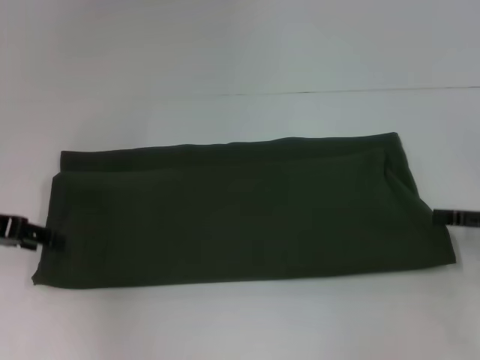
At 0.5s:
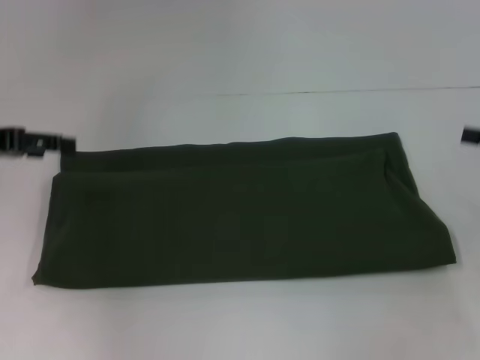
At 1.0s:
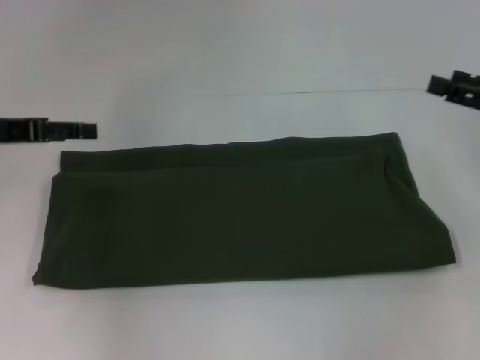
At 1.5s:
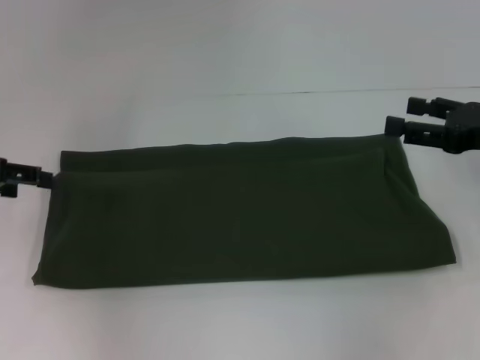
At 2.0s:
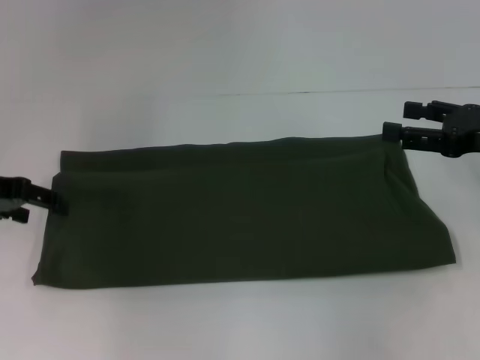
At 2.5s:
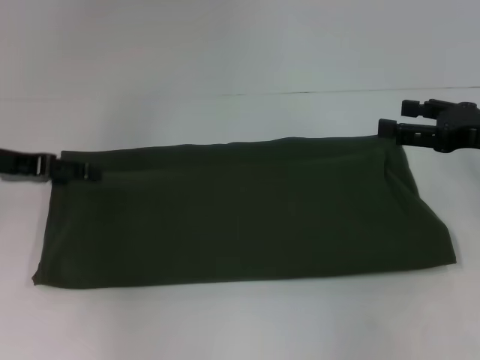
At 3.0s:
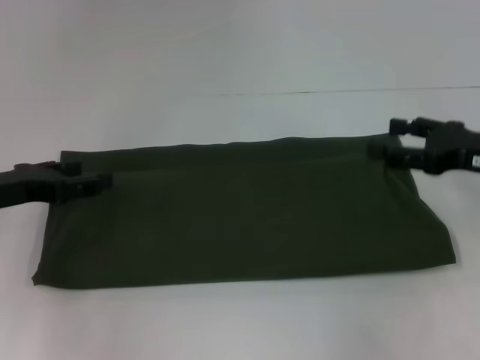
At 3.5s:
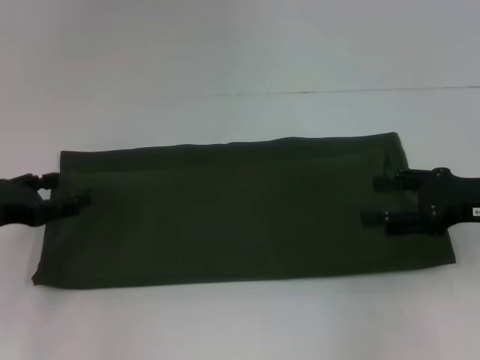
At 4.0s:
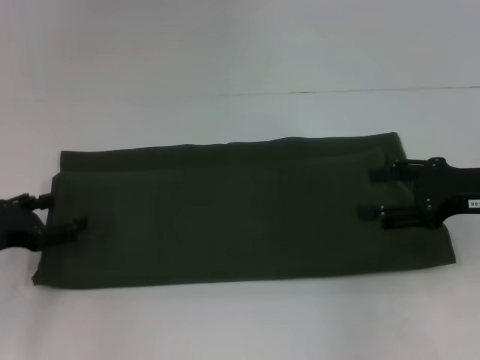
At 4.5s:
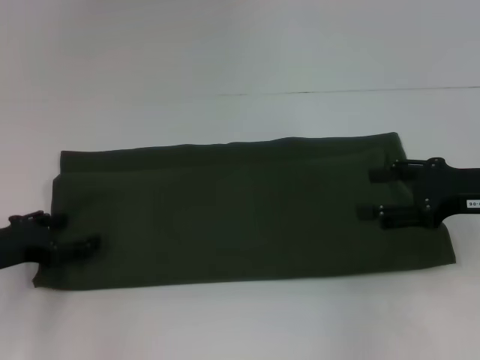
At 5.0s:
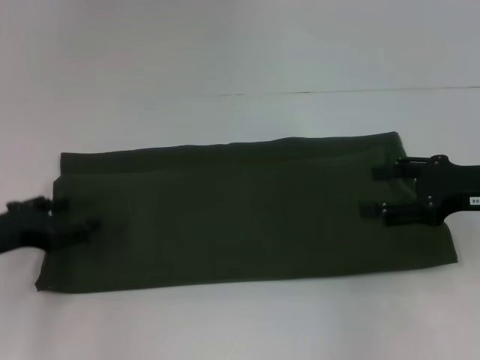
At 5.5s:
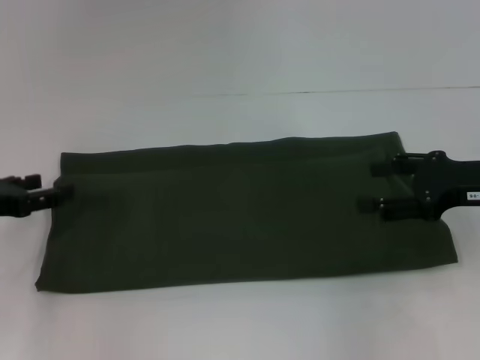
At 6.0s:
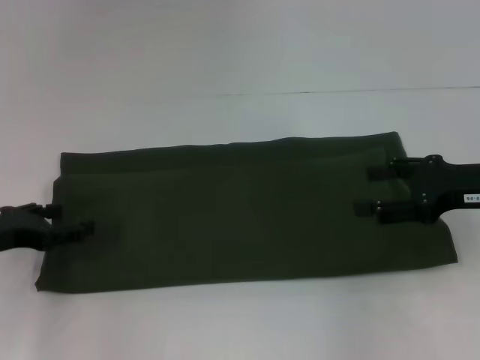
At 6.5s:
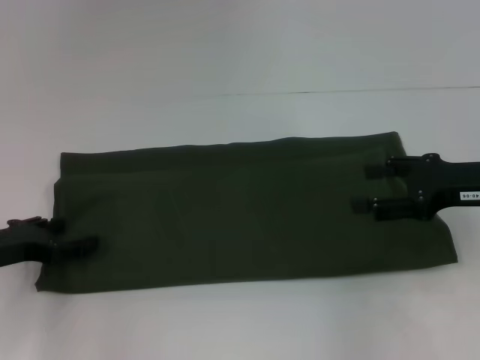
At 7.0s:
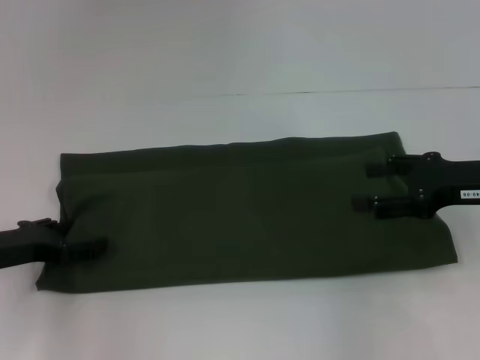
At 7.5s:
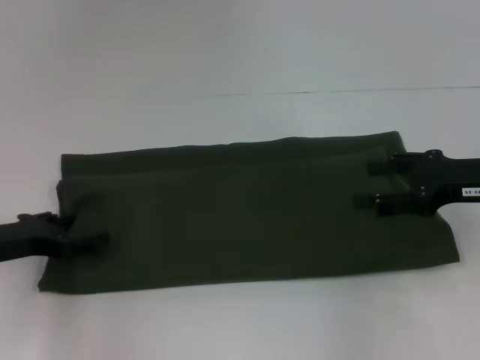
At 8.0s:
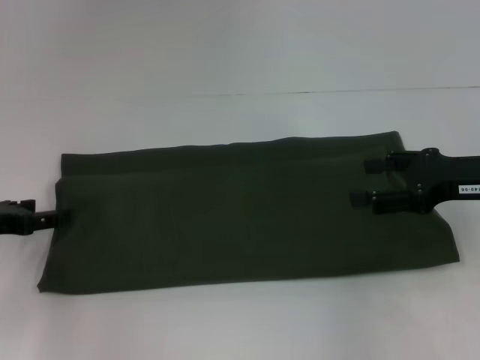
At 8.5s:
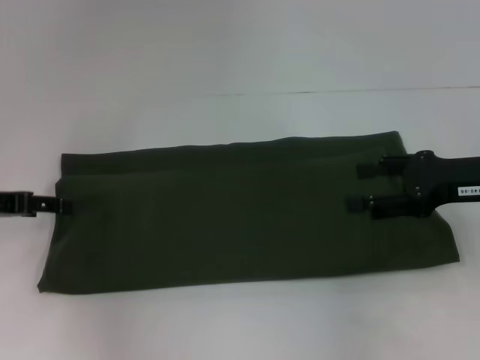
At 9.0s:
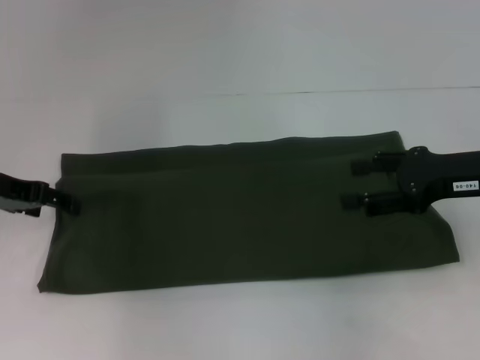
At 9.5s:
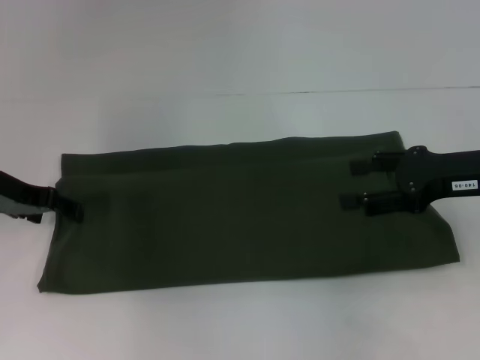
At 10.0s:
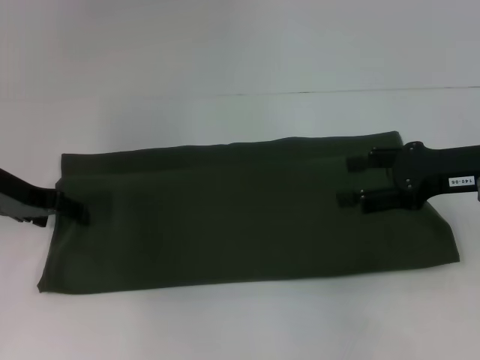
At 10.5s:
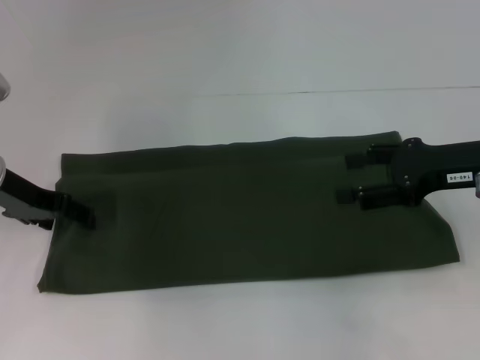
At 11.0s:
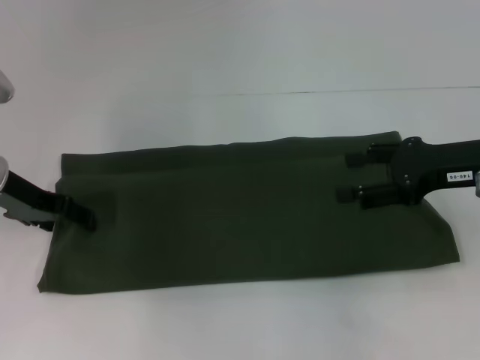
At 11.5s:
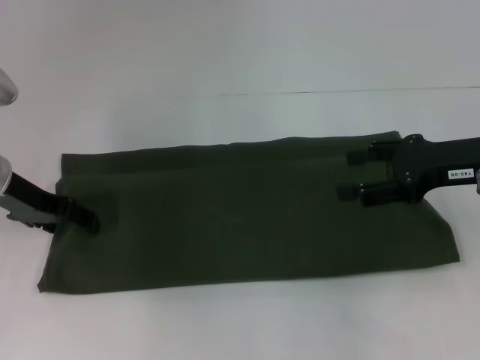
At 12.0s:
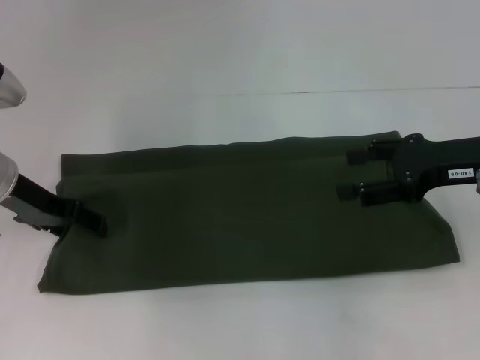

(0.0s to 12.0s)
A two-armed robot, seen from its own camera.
0.0s - 2.0s: The left gripper opens. Meanwhile the right gripper travels to the left by about 5 cm.
2.0s - 4.0s: The left gripper shifts approximately 10 cm downward and backward.
4.0s - 8.0s: There are only small adjustments of the grippers.
8.0s - 10.0s: The left gripper moves forward, about 10 cm.
10.0s - 12.0s: The grippers make only small movements.

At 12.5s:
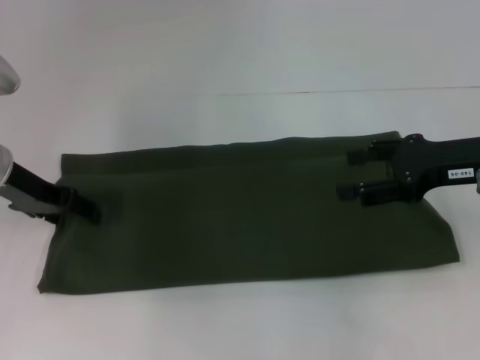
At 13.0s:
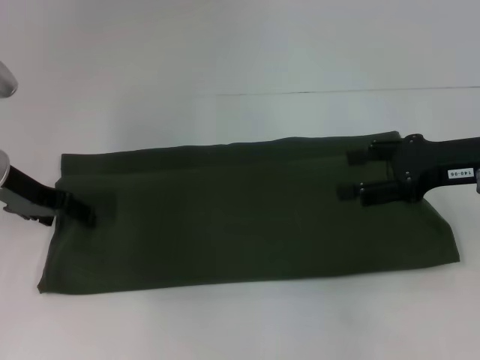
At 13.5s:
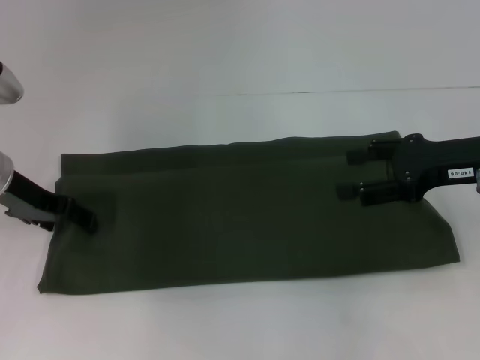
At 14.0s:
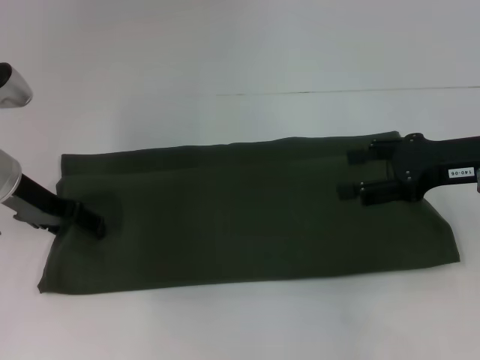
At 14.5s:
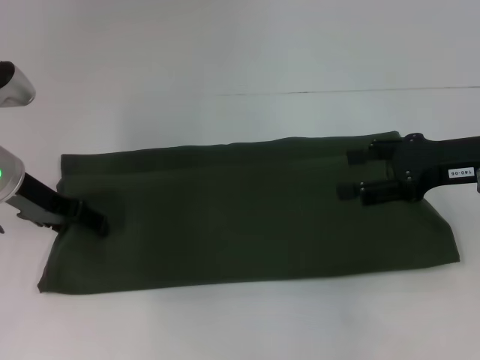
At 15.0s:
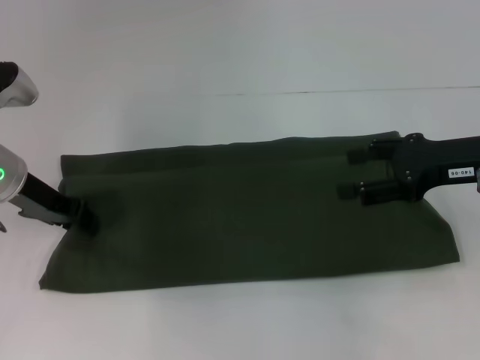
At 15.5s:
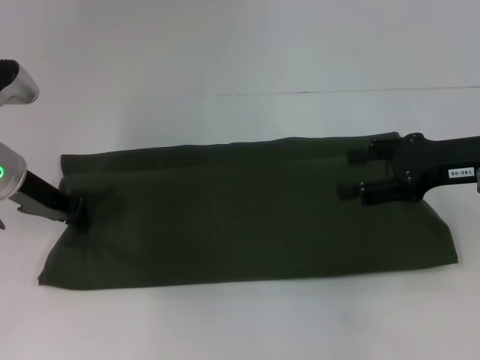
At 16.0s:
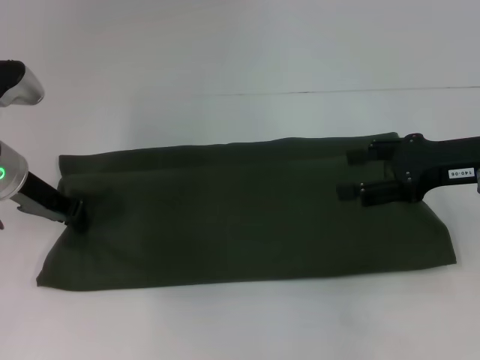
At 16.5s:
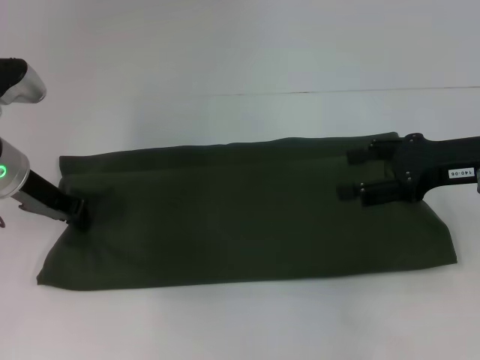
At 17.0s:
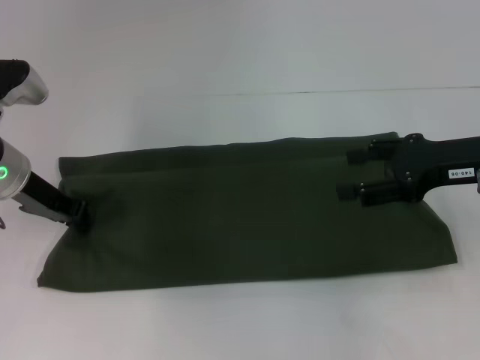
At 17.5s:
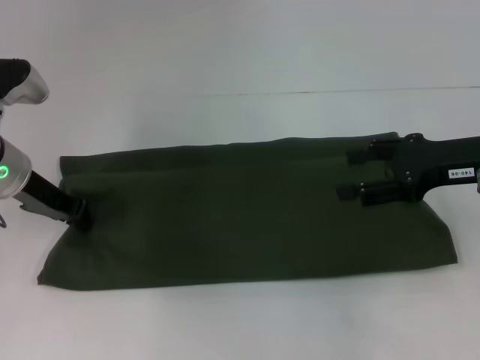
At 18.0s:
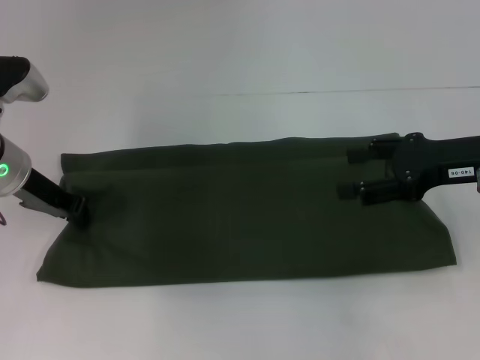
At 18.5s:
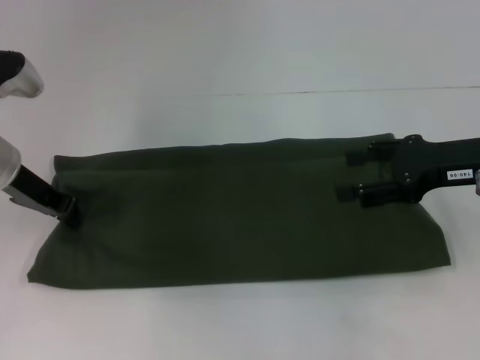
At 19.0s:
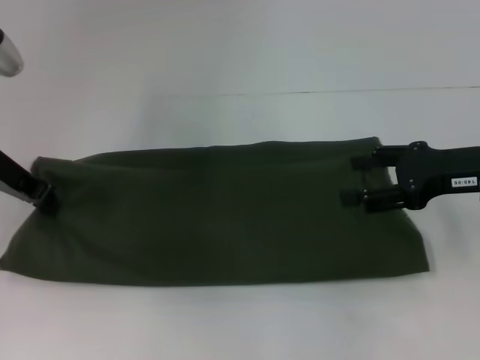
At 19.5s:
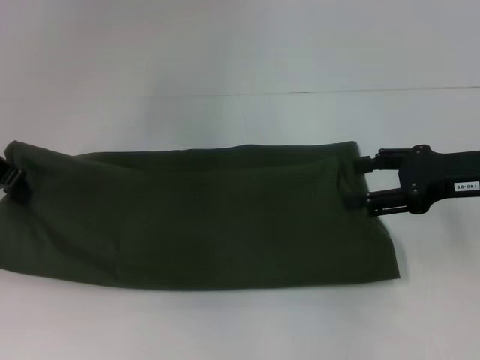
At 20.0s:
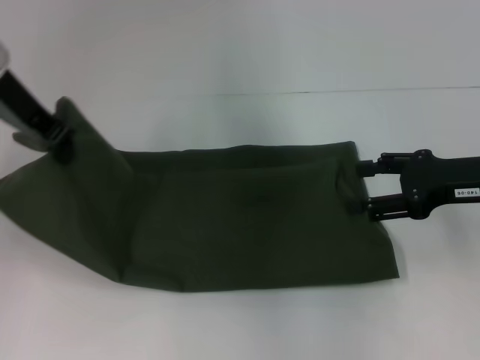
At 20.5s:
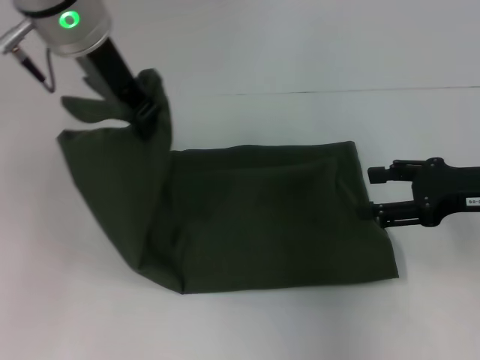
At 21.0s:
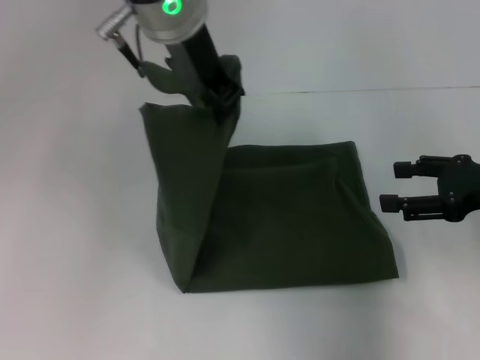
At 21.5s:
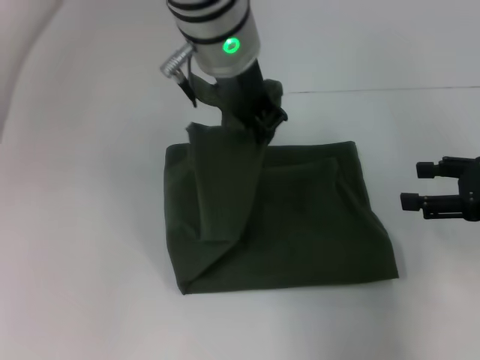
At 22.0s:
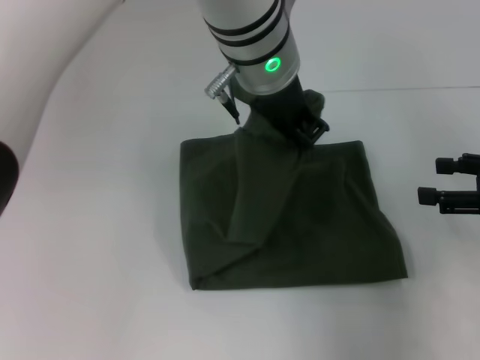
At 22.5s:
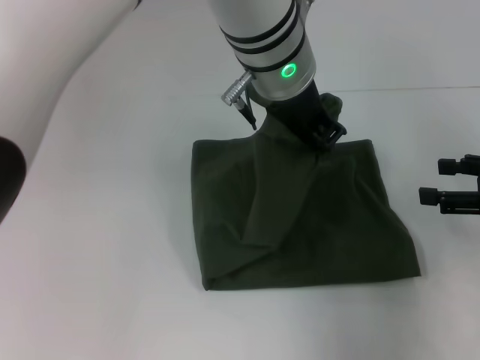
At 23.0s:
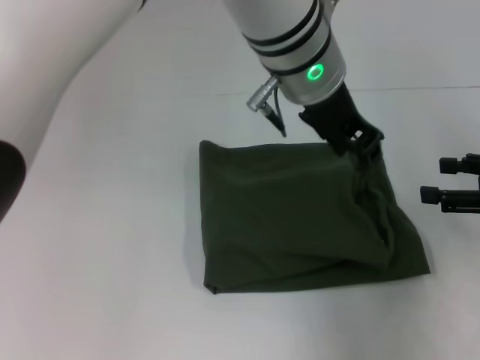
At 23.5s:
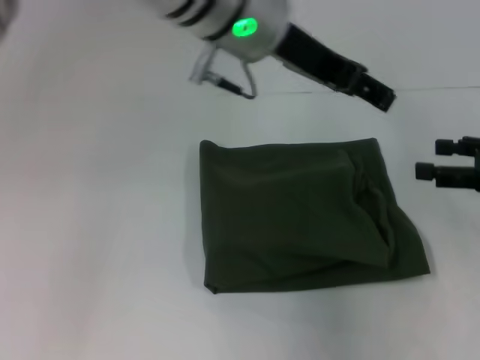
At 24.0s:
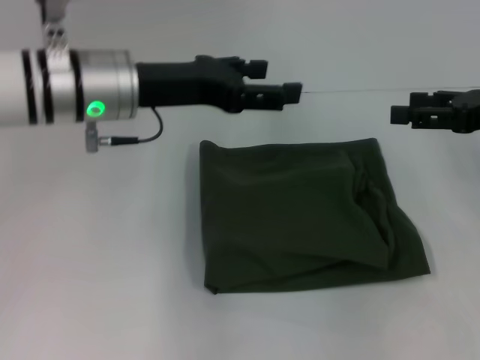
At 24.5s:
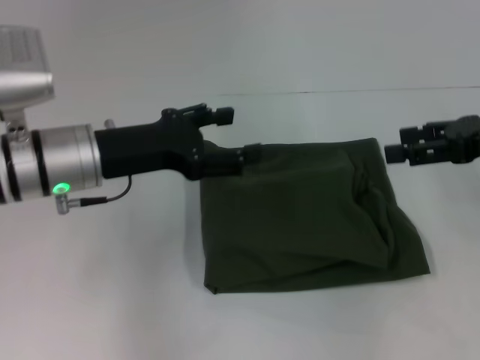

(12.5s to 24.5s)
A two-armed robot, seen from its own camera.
Step, 12.5s - 23.0s: Fold the clothes with your left hand.
12.5s - 14.5s: Both grippers stay put.
14.5s - 16.5s: The left gripper closes its fingers.
16.5s - 18.5s: The two grippers keep their place.
18.5s - 20.5s: The left gripper travels upward and to the right by approximately 20 cm.
20.5s - 22.5s: The left gripper goes approximately 15 cm to the right. The right gripper travels to the right by some 5 cm.
22.5s - 24.5s: The left gripper moves to the left and downward, roughly 25 cm, and opens up; the right gripper moves upward, approximately 5 cm.

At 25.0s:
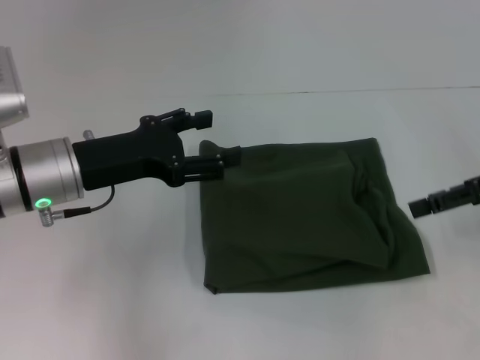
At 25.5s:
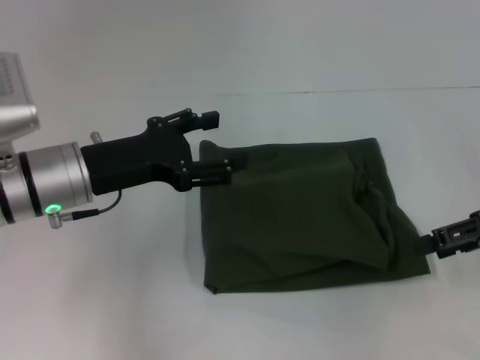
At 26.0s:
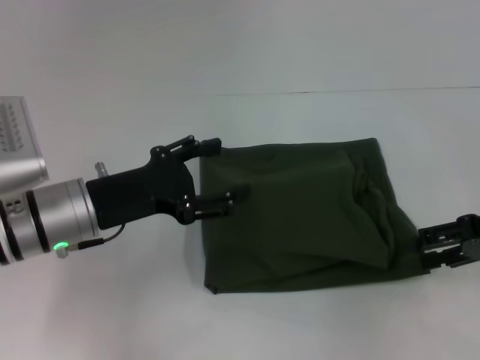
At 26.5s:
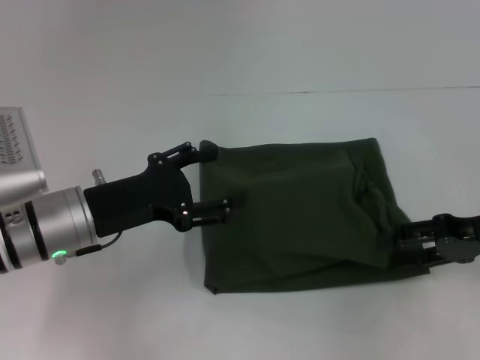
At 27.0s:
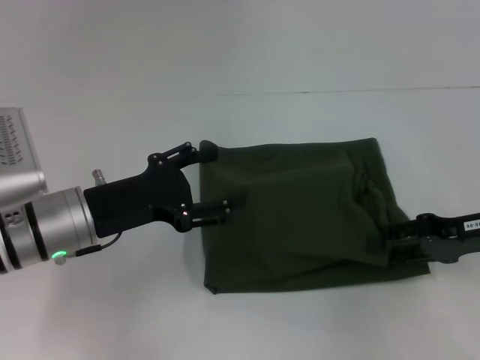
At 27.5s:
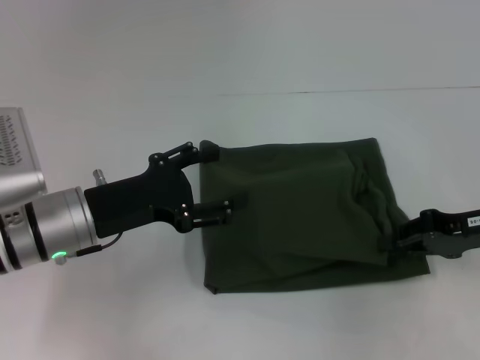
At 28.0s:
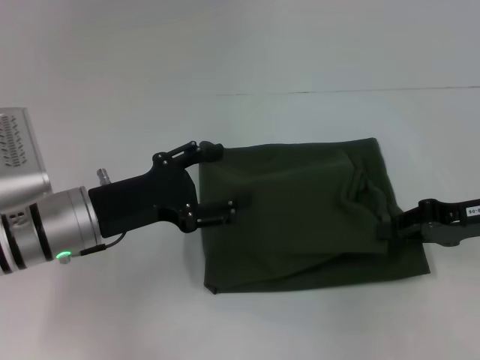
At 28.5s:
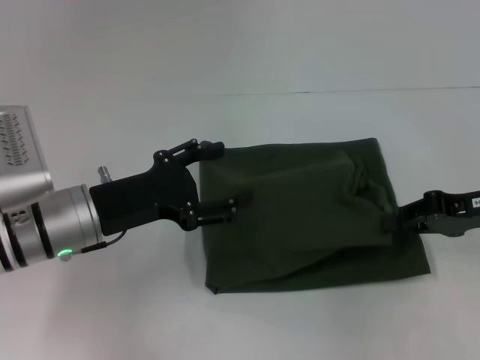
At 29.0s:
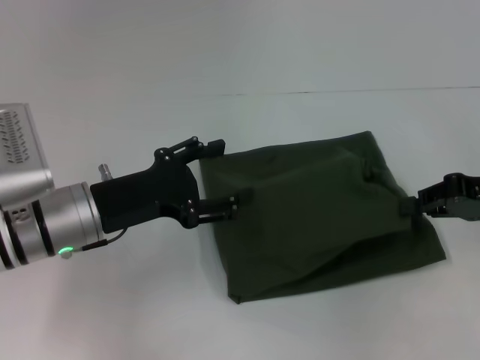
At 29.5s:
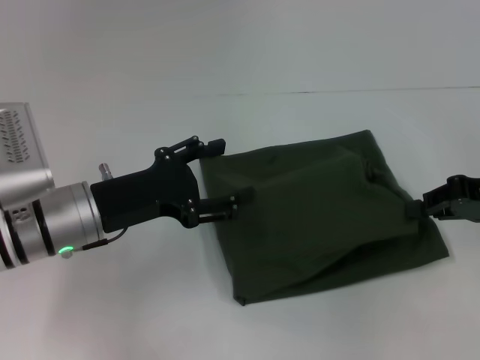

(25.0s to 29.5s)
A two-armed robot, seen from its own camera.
25.0s - 27.0s: The right gripper is displaced downward by about 10 cm.
27.0s - 29.5s: The right gripper shifts by approximately 5 cm, and closes its fingers.
